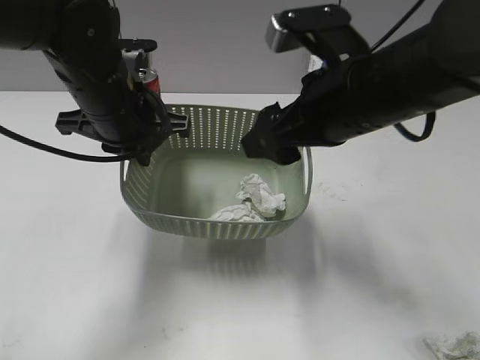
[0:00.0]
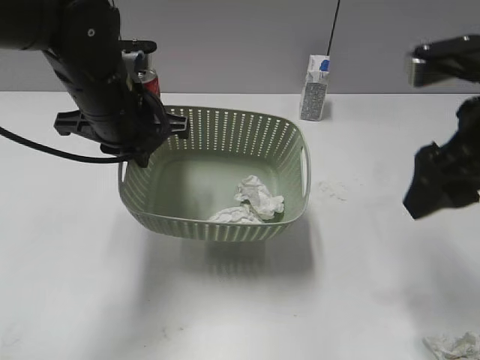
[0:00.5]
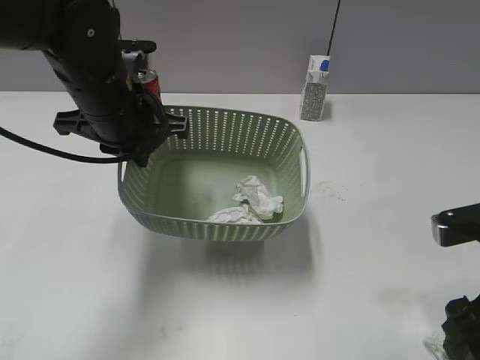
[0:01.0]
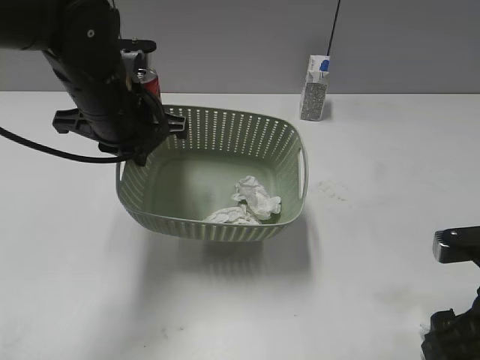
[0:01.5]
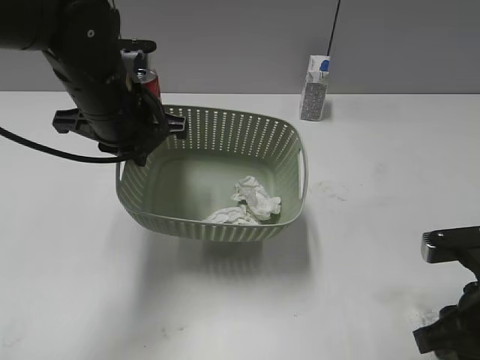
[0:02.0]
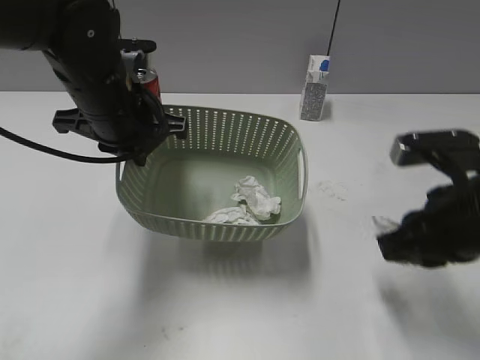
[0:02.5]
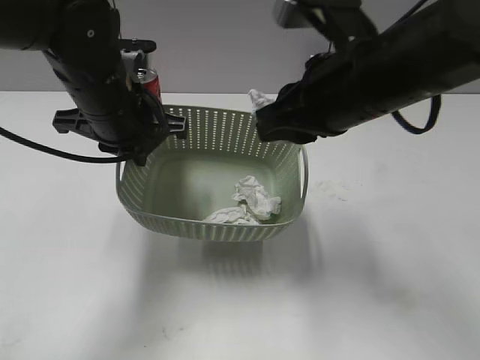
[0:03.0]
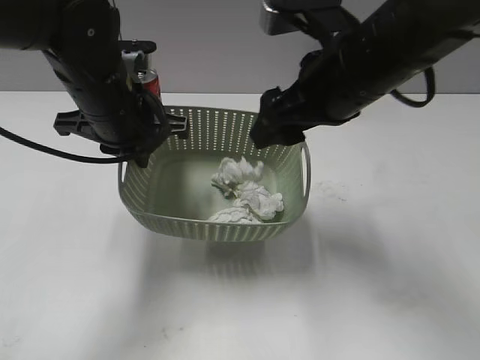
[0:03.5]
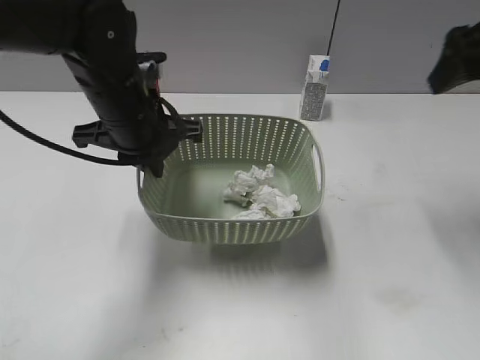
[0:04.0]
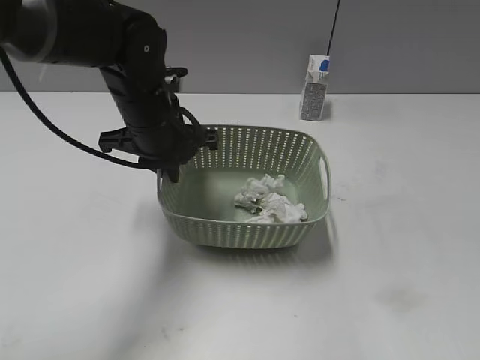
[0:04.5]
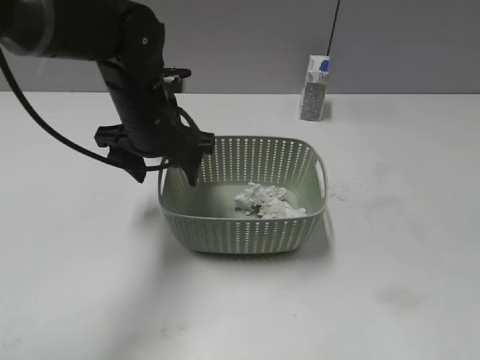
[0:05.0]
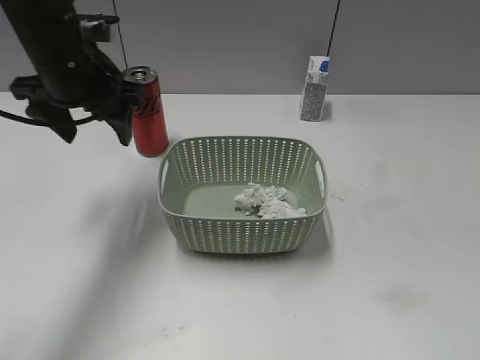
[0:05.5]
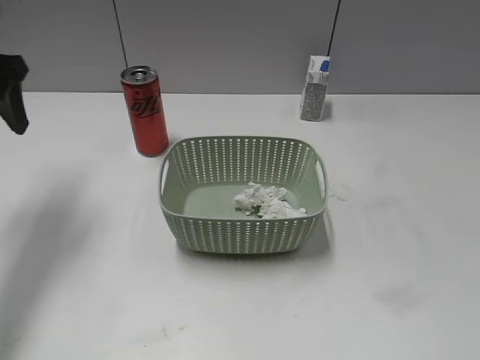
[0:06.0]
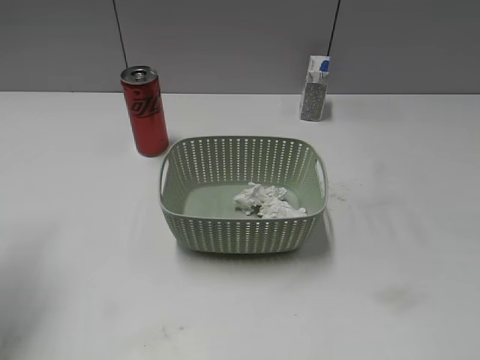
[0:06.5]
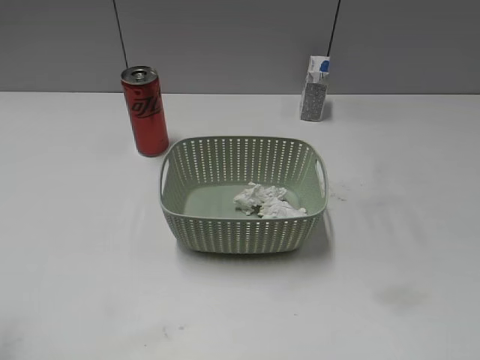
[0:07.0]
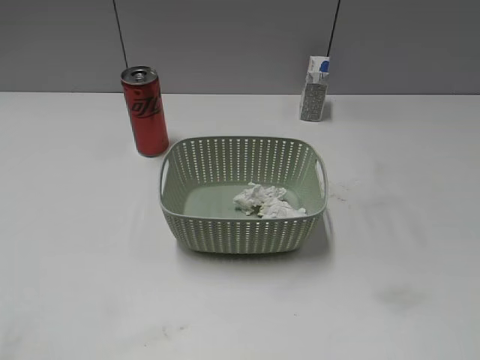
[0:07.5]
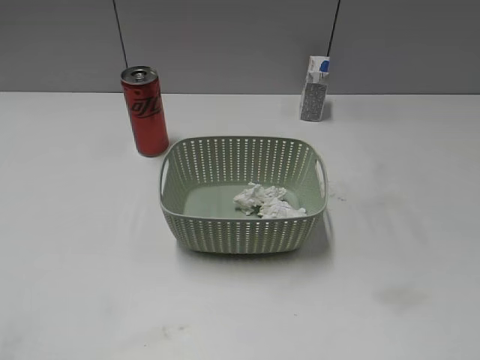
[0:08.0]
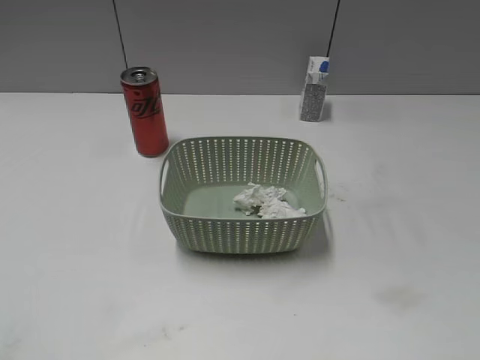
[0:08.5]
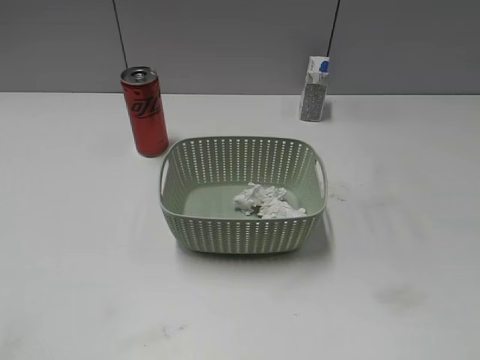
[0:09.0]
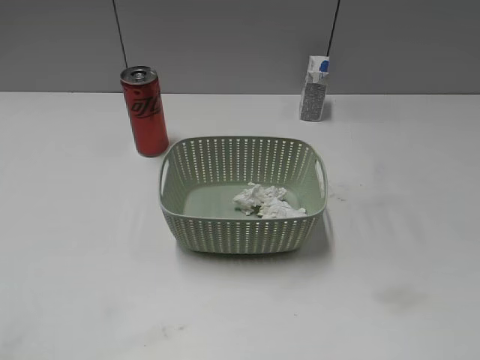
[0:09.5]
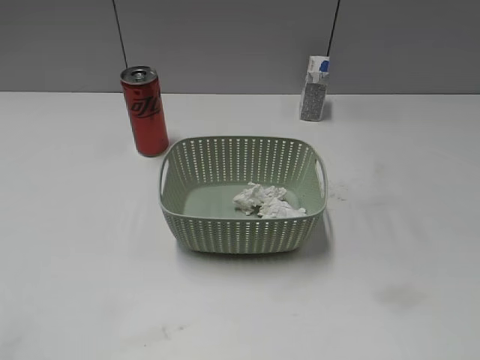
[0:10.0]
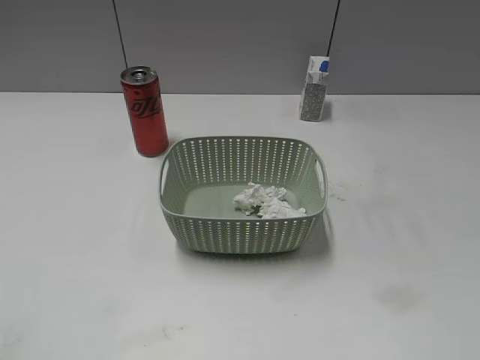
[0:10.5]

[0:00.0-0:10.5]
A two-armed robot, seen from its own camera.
Step, 0:00.5 to 0:02.0: Grasp the waste paper with right gripper.
Step, 0:02.5 to 0:03.5: Place the waste paper in the basket with right gripper.
0:00.0 to 0:02.0: The right gripper travels to the right, downward and backward by roughly 20 cm, and closes its fingers.
0:02.0 to 0:04.0: The right gripper heads upward and forward, covering approximately 25 cm, and opens.
0:04.0 to 0:06.5: The left gripper goes about 20 cm to the left and upward, and opens up, while the right gripper heads backward, covering roughly 30 cm.
0:06.5 to 0:08.5: The left gripper goes some 25 cm backward.
0:08.5 to 0:10.5: Both grippers stay put.
